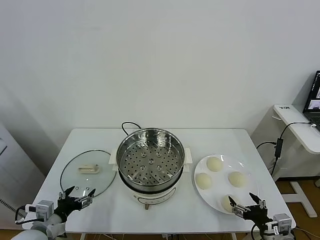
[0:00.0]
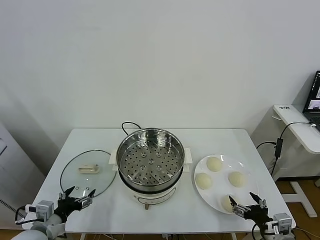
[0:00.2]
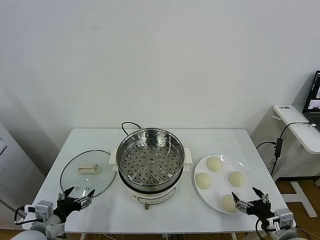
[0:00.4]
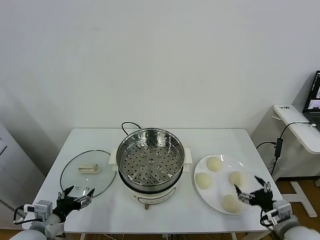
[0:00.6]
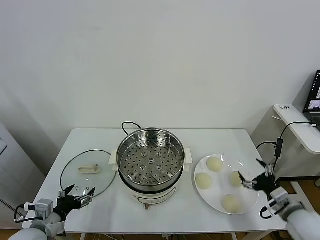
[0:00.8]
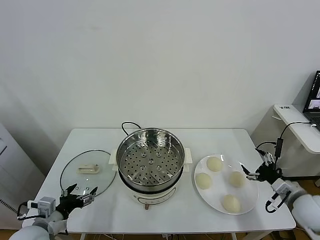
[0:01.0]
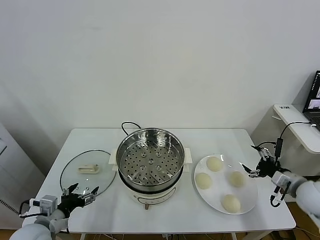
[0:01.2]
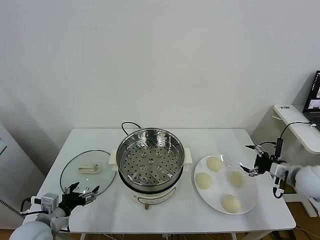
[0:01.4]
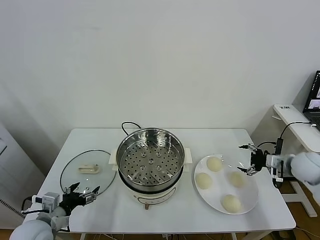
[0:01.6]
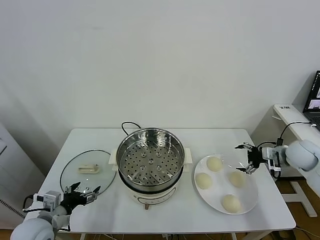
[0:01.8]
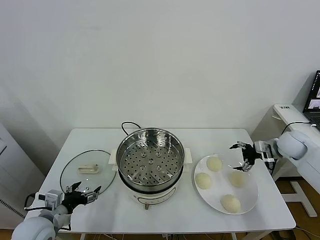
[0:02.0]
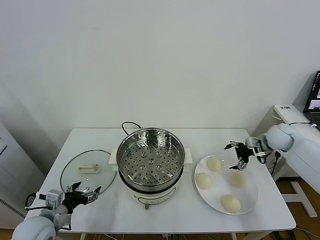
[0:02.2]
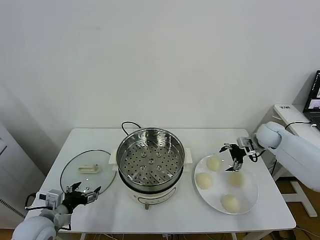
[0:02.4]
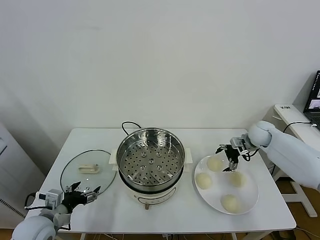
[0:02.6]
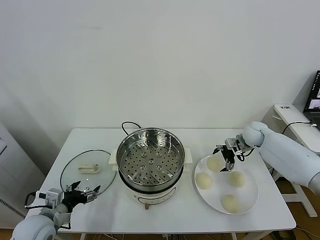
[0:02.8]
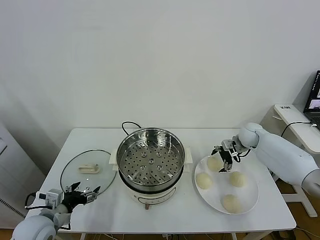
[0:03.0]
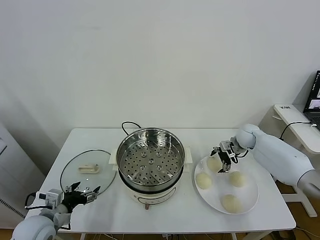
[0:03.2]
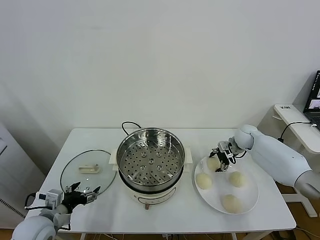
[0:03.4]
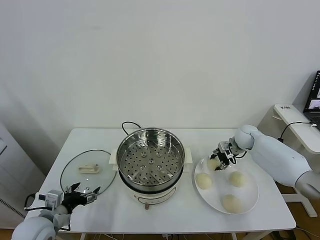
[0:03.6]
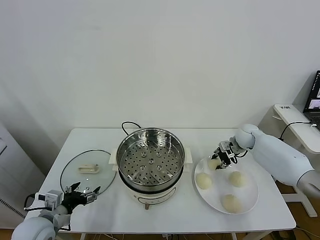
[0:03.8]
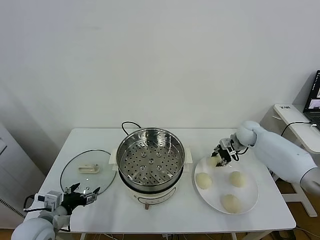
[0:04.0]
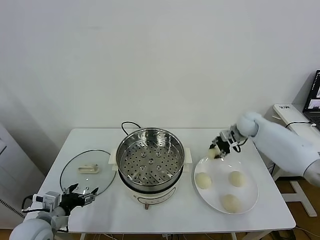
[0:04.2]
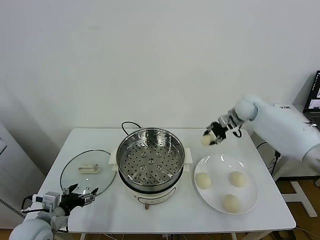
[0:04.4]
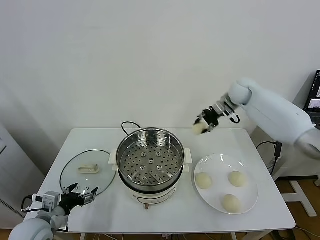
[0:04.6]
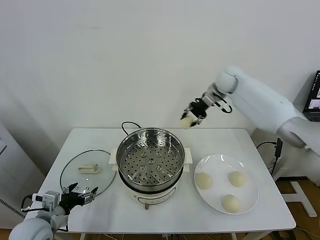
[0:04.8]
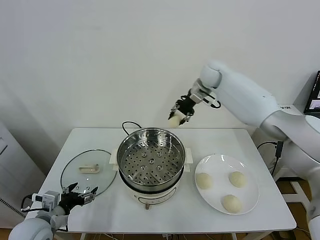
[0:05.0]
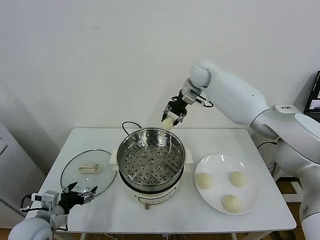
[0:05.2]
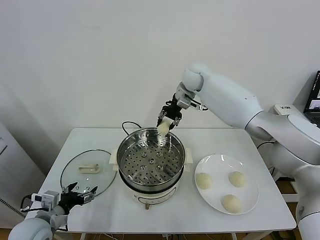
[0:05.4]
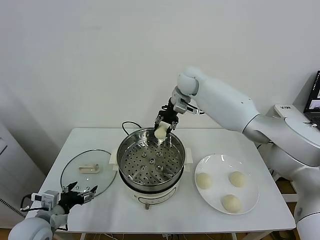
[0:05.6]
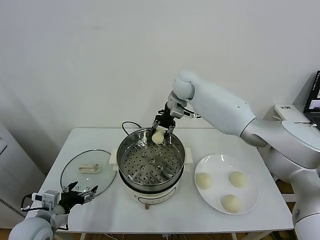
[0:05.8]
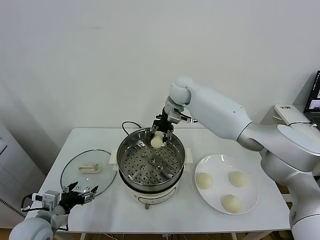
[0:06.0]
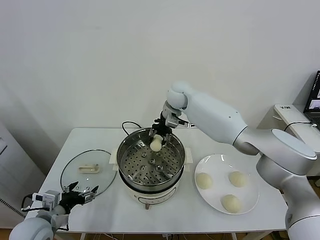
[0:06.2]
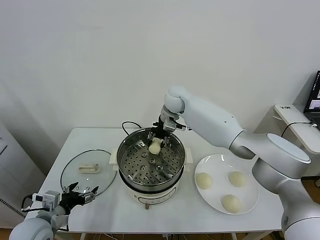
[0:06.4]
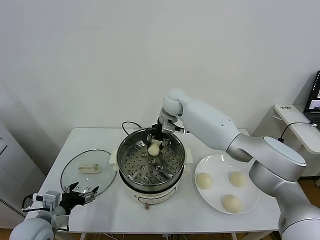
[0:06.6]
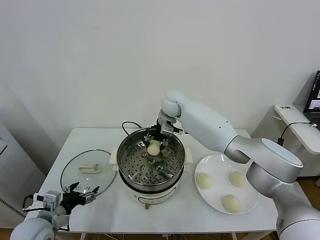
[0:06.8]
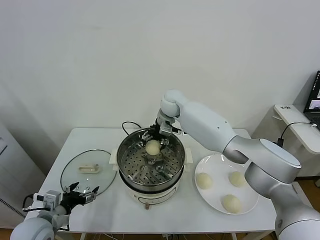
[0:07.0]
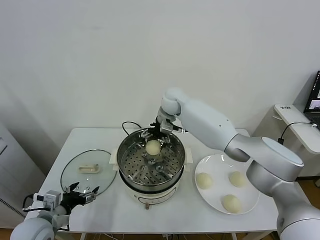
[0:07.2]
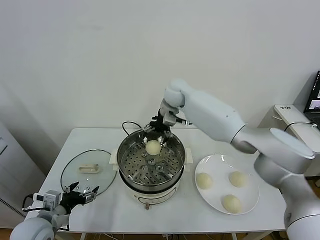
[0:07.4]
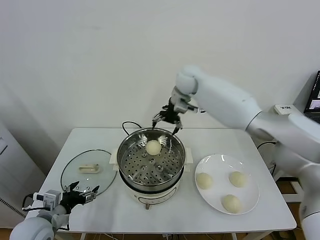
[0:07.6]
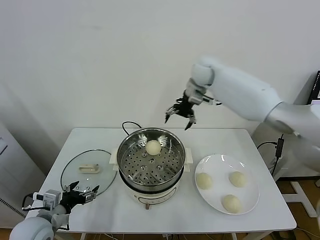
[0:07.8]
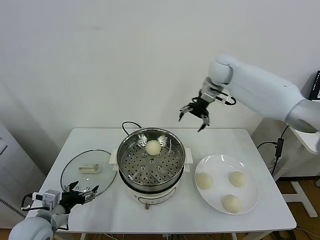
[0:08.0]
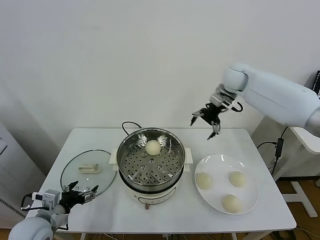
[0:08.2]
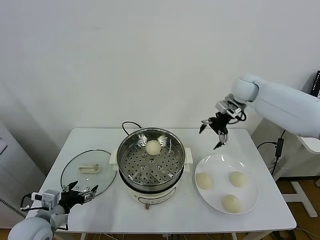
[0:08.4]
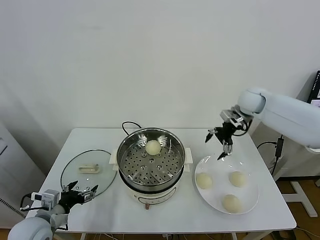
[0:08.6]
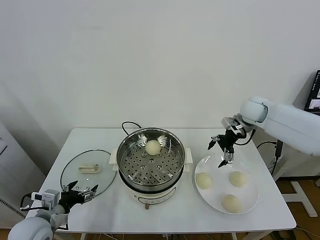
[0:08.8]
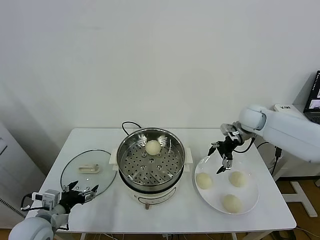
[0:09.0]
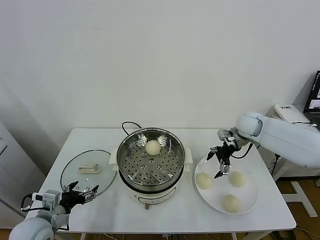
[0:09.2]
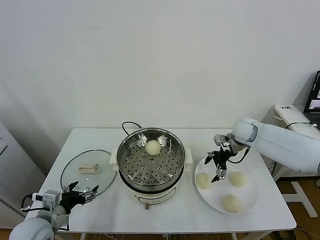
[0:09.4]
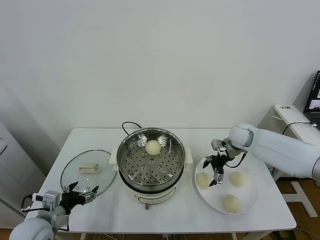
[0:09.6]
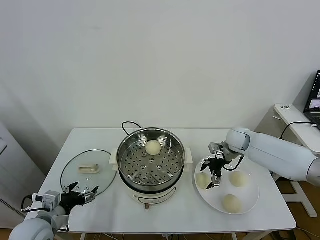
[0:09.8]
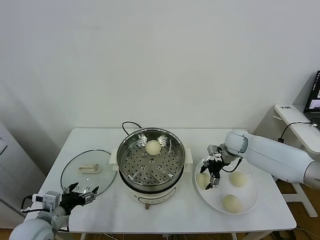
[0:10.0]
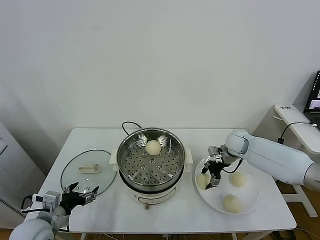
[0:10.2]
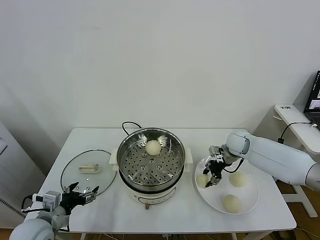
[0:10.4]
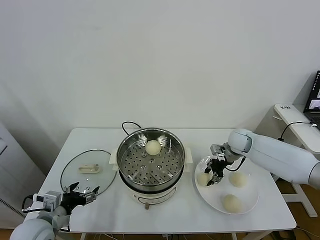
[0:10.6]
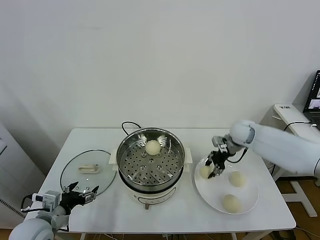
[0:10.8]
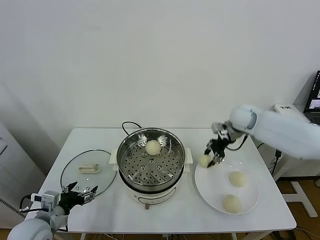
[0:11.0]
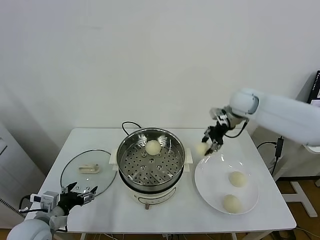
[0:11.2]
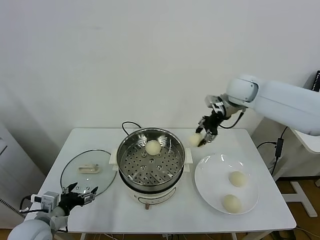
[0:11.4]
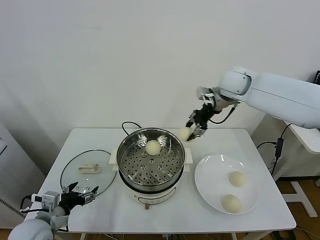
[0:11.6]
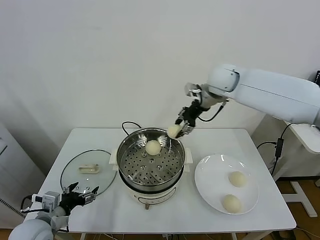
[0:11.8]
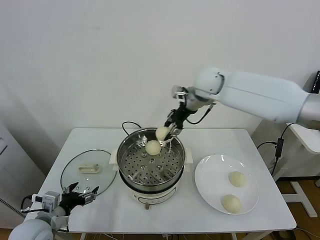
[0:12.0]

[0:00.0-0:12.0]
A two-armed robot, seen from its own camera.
Task of the whole recording: take steamed baozi put them in steamer.
Step, 0:00.0 to 0:03.4: Grasp the baozi in the plate with right gripper.
Step, 0:03.6 to 0:07.0: Place the baozi on the steamer with right gripper.
Step, 0:07.2 to 0:10.2: Grasp the baozi in the plate with right gripper.
0:01.6 to 0:03.0: The right gripper heads forward and to the left, covering approximately 20 cm.
0:03.0 to 0:04.4: The right gripper goes roughly 15 cm upward, and closes.
0:04.4 to 0:06.0: The right gripper is displaced to the left by approximately 25 cm.
0:06.0 to 0:07.6: The right gripper is displaced upward by approximately 5 cm, and opens.
0:07.6 to 0:09.0: The right gripper moves to the right and downward, some 25 cm.
0:09.0 to 0:10.4: The right gripper heads downward, covering roughly 10 cm, and closes up.
0:10.4 to 0:12.0: The right gripper moves upward and to the left, about 30 cm.

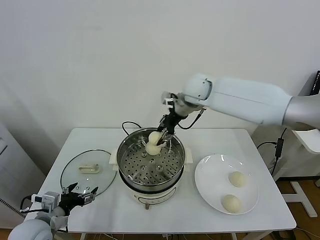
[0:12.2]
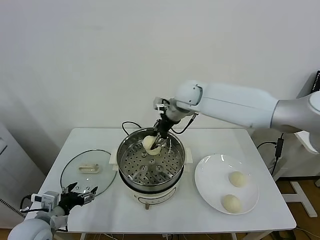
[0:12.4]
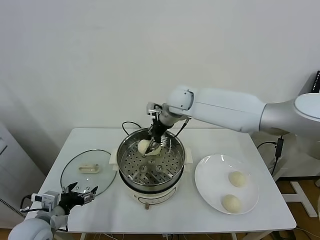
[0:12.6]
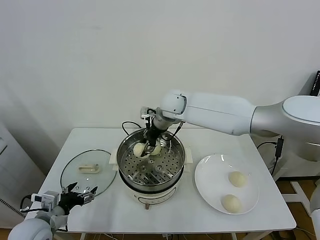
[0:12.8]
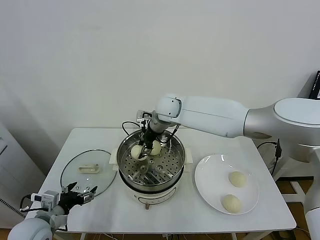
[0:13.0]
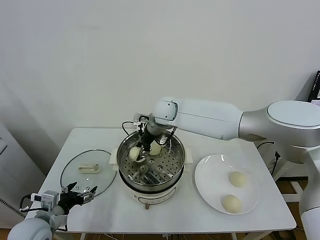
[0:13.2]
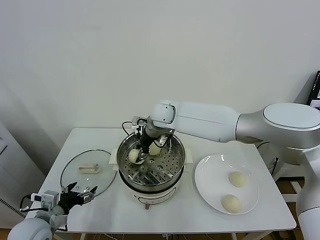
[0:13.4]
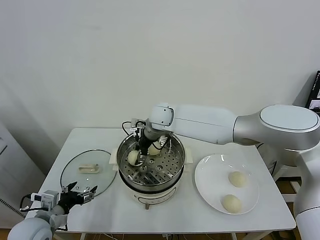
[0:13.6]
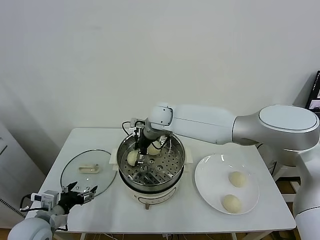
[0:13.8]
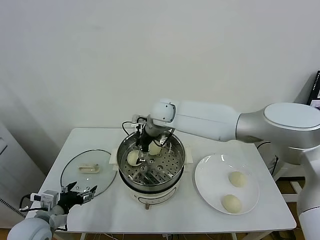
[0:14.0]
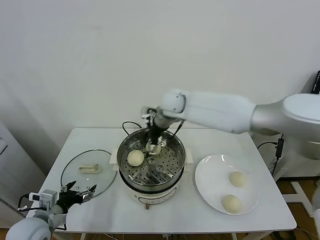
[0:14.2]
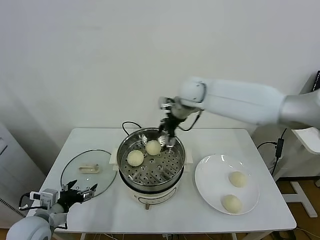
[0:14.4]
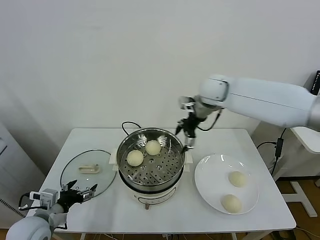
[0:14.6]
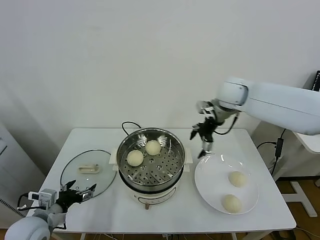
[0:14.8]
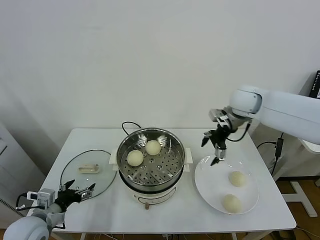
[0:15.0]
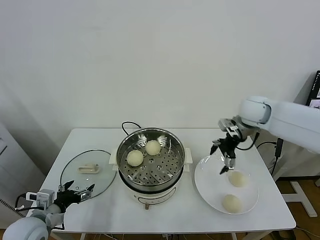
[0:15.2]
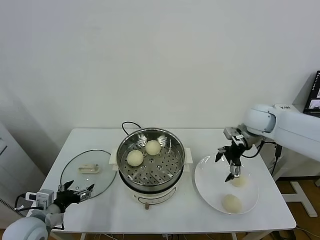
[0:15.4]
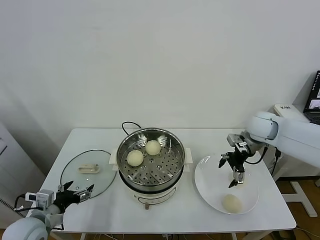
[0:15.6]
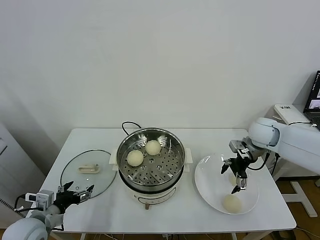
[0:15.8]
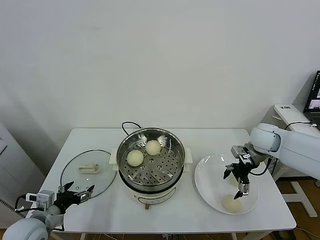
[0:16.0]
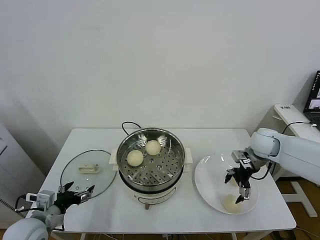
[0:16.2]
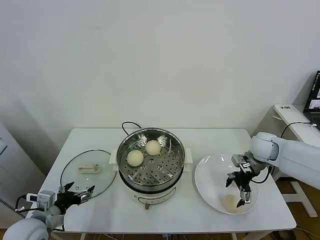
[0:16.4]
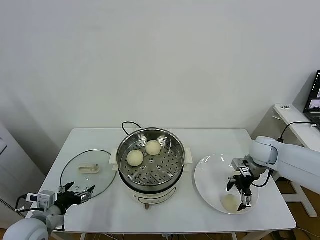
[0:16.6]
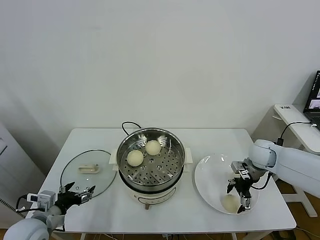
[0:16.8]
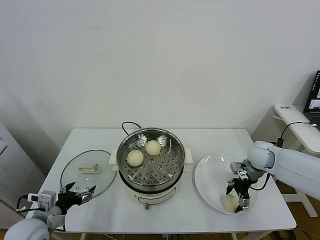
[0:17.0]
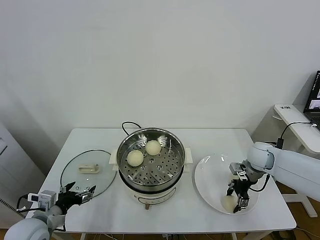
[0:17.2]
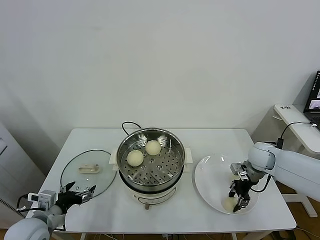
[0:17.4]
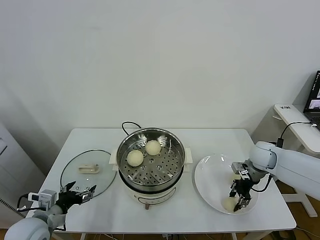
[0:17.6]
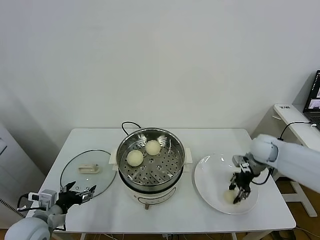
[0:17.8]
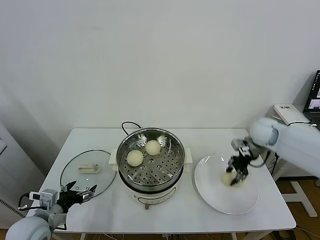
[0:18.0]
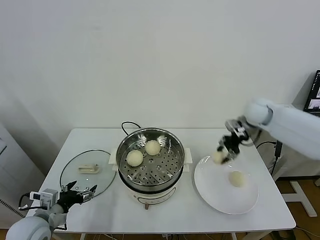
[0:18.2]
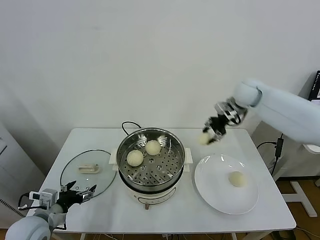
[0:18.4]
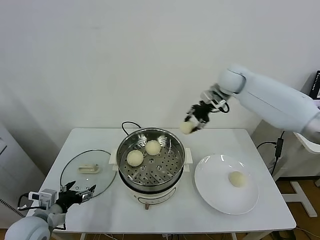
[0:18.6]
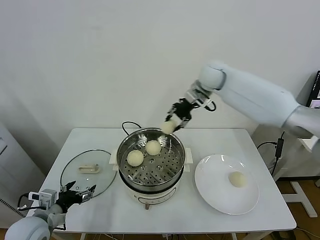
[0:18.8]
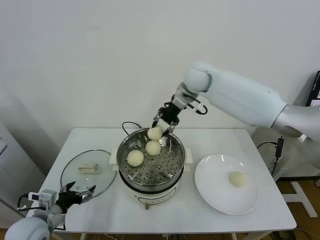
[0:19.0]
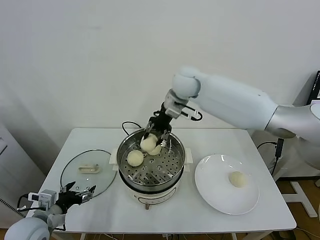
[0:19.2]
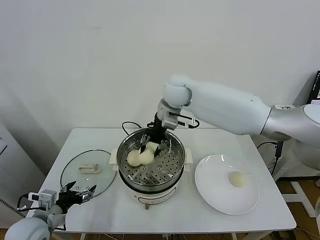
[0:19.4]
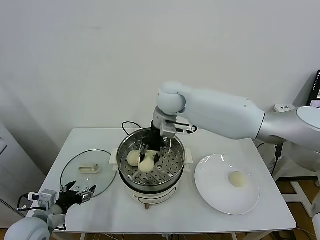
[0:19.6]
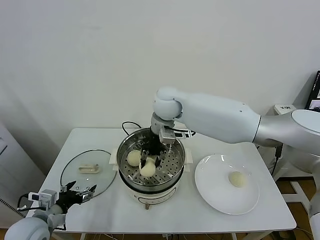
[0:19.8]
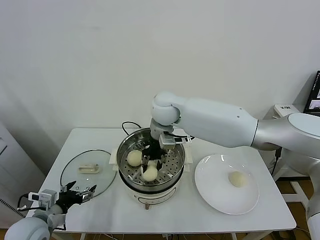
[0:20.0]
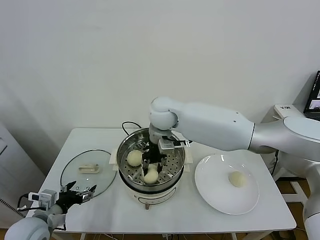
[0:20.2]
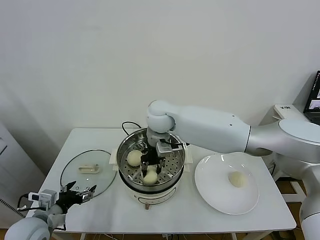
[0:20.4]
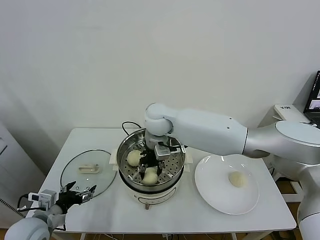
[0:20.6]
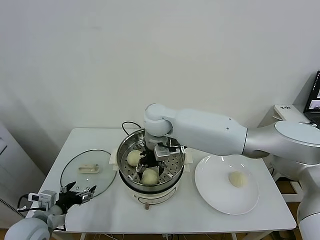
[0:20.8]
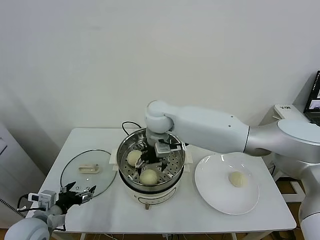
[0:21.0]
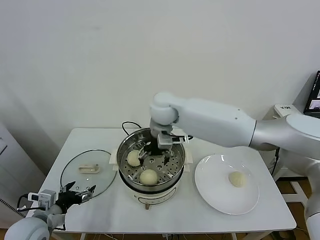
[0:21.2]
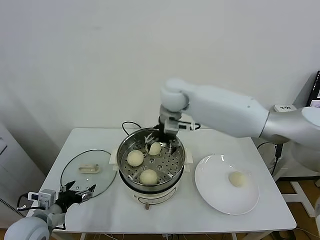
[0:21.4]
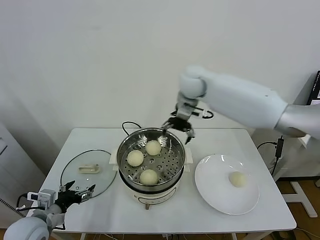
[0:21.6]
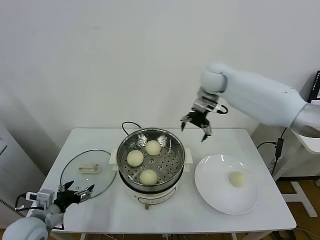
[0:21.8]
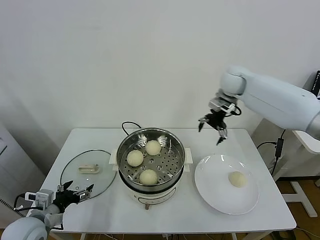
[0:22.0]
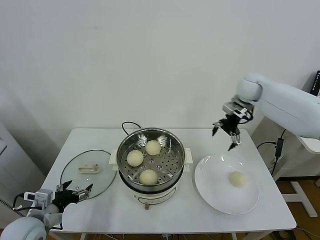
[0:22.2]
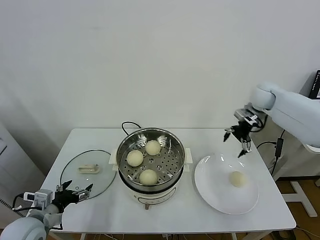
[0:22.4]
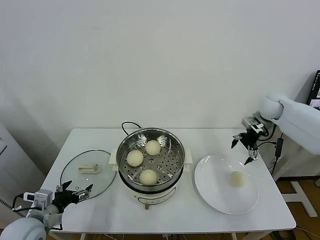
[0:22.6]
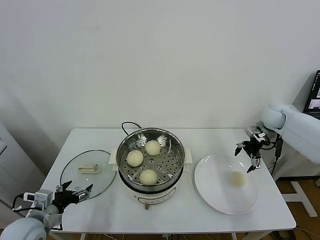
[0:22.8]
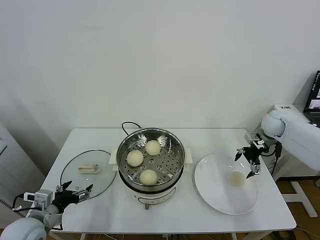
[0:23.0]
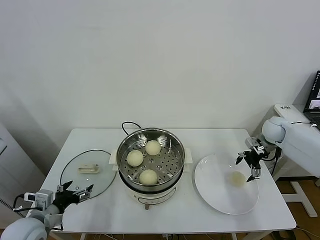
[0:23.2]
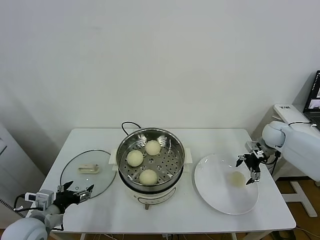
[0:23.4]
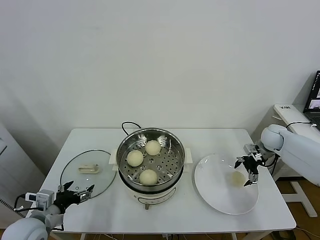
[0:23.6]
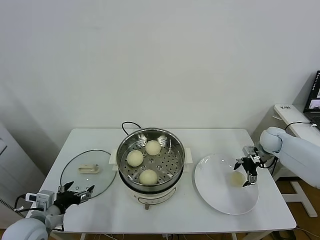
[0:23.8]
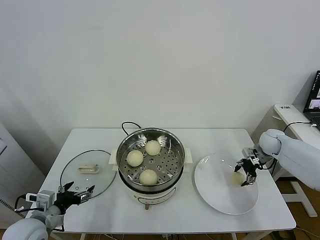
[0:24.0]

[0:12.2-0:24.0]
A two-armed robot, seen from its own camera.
Task of the whole recording: take steamed baozi put them in steamer.
Step, 0:12.2 to 0:14.0: Place the baozi on the steamer with right gripper.
Step, 0:14.2 to 0:17.2: Grasp the baozi in the plate with right gripper.
Step, 0:17.4 to 0:21.0: Place the baozi on the steamer with right gripper.
0:12.2 to 0:13.6: The right gripper moves to the left and downward, roughly 15 cm.
0:13.6 to 0:15.2: The right gripper shifts about 30 cm to the right, and opens.
0:15.2 to 0:16.6: The right gripper shifts about 15 cm downward and to the right.
0:16.6 to 0:18.2: The right gripper heads upward and forward, covering some 15 cm, and closes.
0:18.2 to 0:19.6: The right gripper is displaced to the left by some 30 cm.
0:19.6 to 0:21.0: The right gripper ends up approximately 5 cm from where it was, and opens its fingers.
0:21.0 to 0:22.6: The right gripper is displaced to the right by roughly 40 cm.
0:22.6 to 0:24.0: The right gripper is displaced downward by roughly 15 cm, and closes its fingers.
